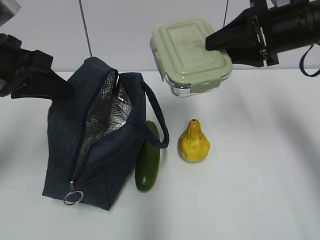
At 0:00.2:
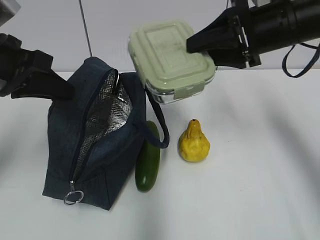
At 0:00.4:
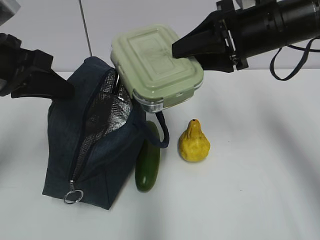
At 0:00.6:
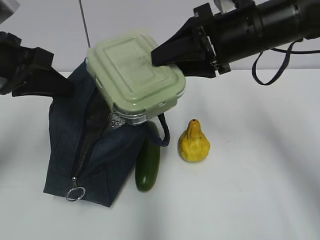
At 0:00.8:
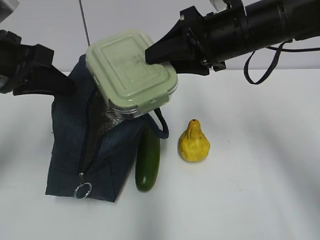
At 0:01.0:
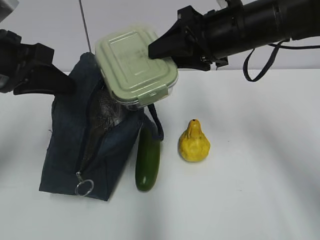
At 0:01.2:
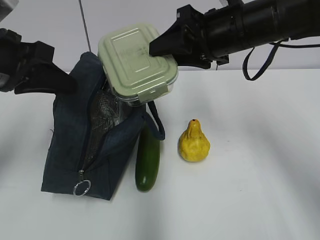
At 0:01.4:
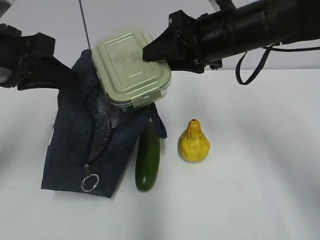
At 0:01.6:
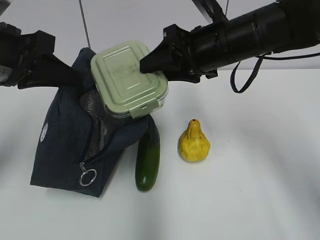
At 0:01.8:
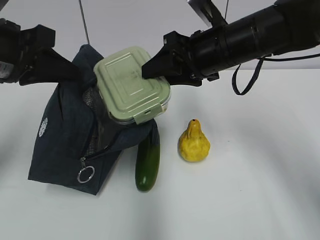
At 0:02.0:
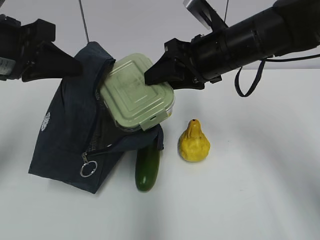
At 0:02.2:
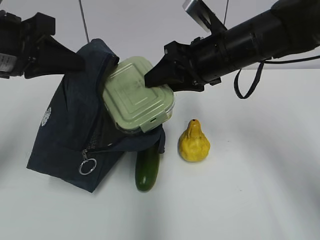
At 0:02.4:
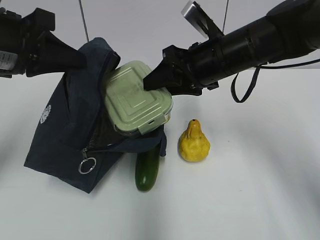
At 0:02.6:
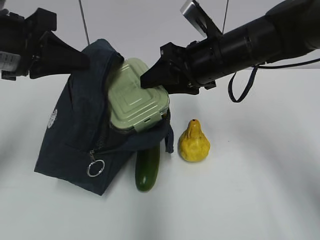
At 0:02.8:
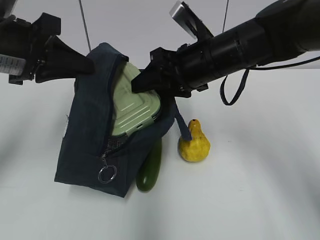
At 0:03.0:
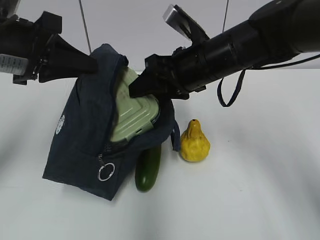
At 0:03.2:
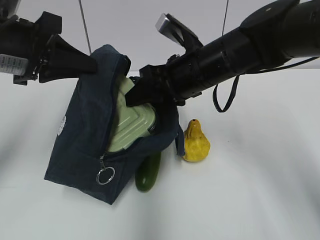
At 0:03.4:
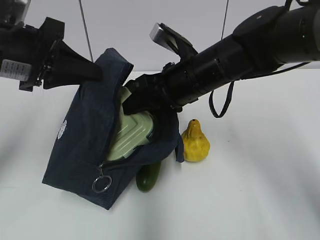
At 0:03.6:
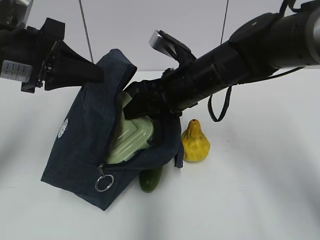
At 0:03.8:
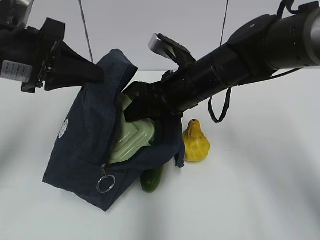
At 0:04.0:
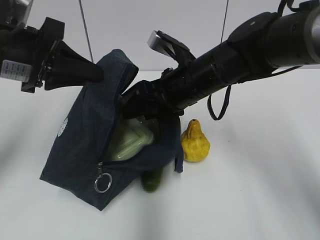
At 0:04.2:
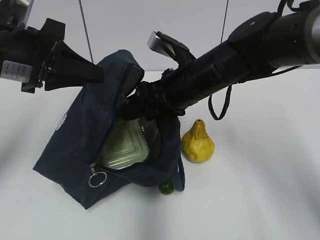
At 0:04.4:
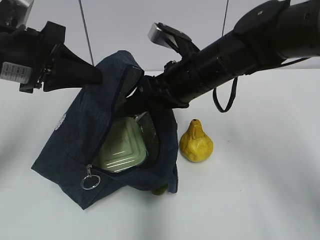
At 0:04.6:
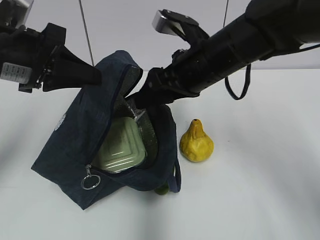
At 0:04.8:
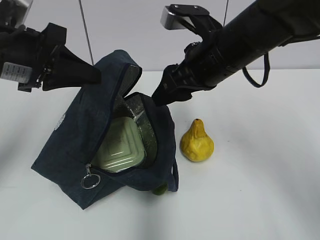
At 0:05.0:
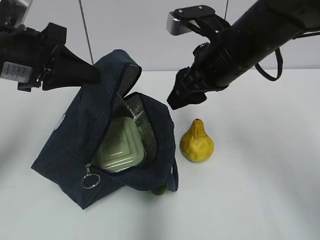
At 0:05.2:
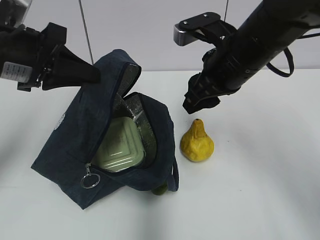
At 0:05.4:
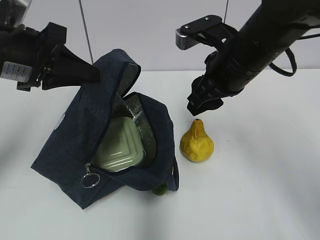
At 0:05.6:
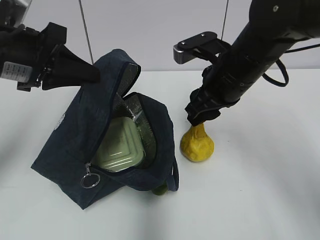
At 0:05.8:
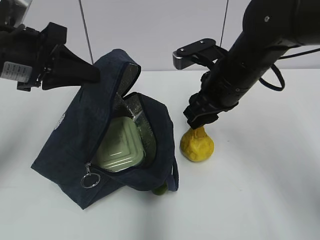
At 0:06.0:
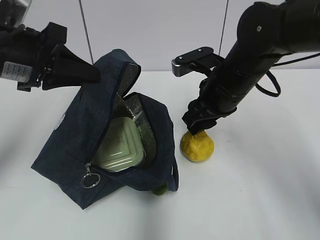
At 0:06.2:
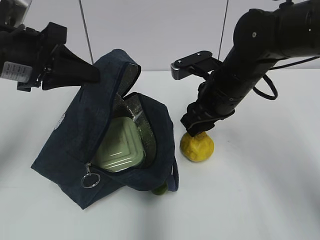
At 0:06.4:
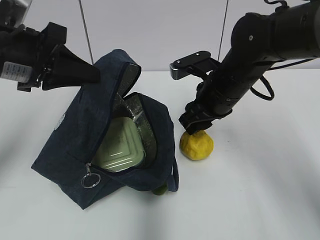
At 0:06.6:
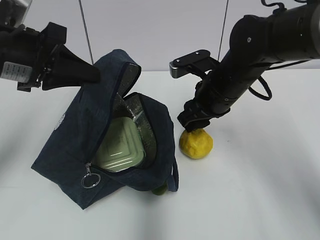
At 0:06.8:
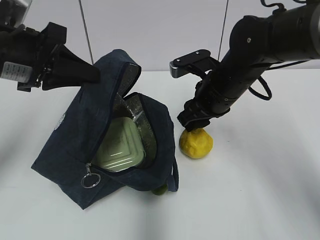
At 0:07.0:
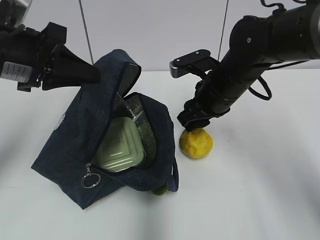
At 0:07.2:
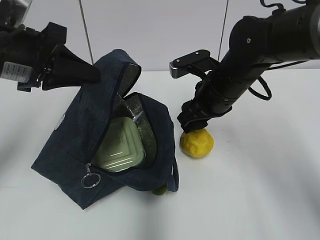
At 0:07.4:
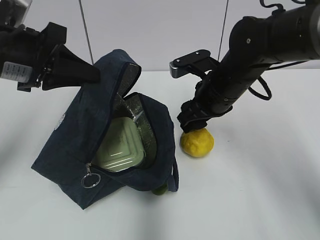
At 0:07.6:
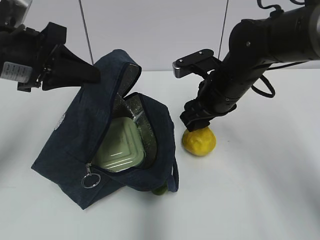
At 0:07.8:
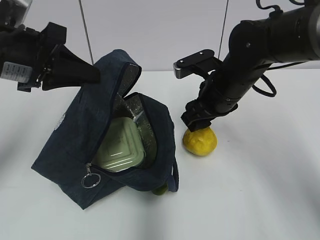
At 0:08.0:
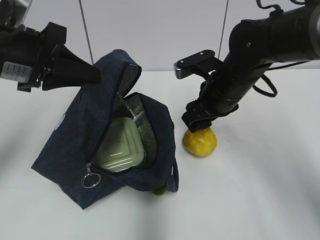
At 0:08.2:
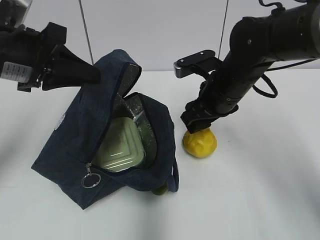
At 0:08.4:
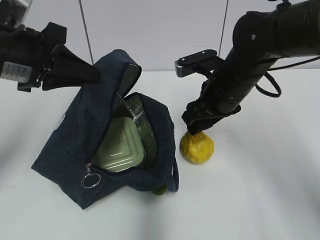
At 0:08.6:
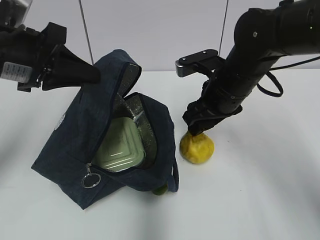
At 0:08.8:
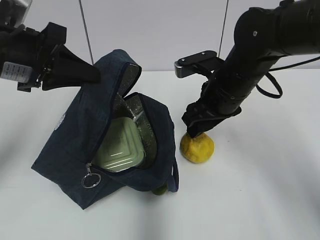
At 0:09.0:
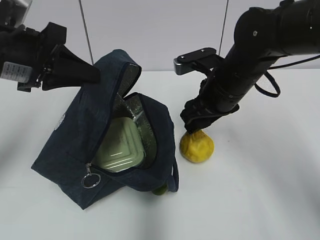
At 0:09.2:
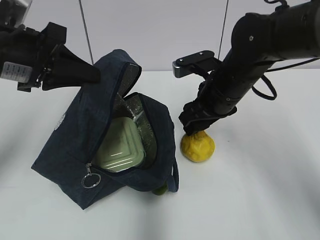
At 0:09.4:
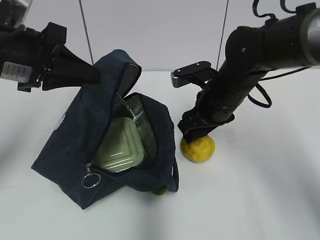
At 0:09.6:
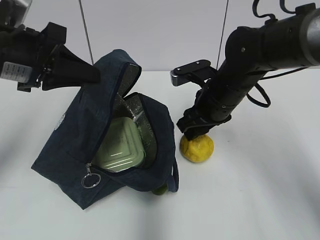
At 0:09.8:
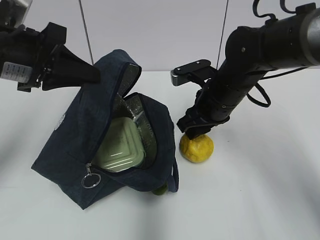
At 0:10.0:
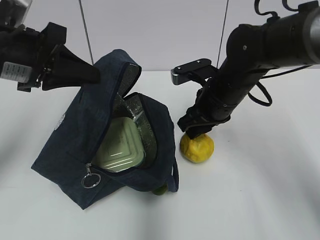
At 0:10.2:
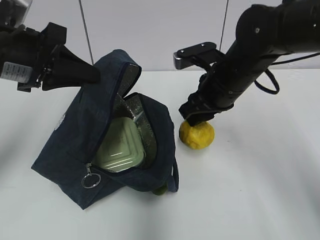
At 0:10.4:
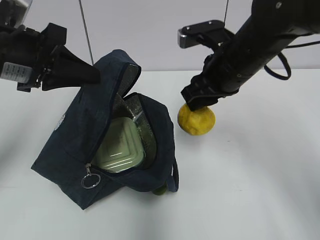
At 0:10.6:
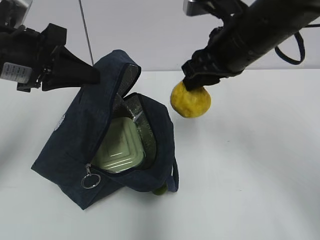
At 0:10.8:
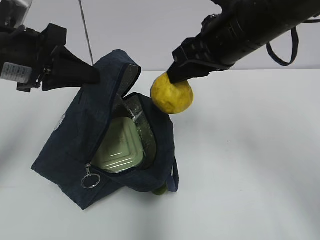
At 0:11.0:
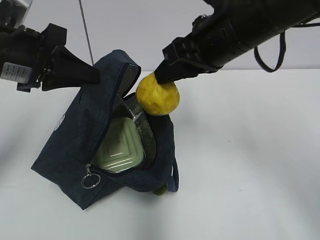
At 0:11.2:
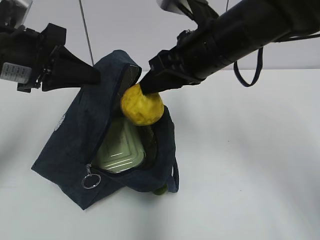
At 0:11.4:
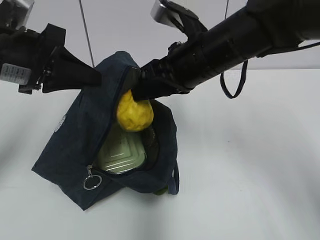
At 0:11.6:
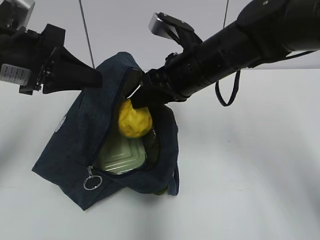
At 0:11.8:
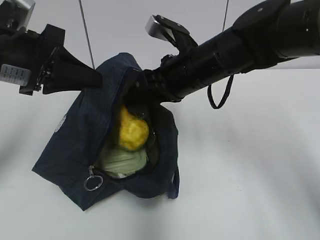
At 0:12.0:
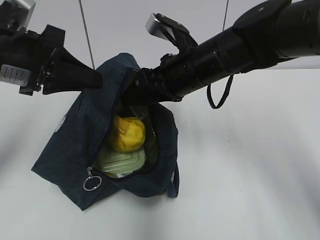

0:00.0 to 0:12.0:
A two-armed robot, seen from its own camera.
0:00.0 to 0:01.6: The right gripper heads to the left, covering some 10 cm.
0:03.0 to 0:04.4: The grippers stay close to where they were, moving slightly.
0:04.4 to 0:06.0: The right gripper shifts by roughly 5 cm.
0:06.0 to 0:10.4: The grippers make only small movements.
0:10.4 to 0:12.0: The right gripper is displaced to the left by approximately 5 cm.

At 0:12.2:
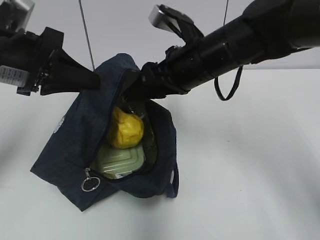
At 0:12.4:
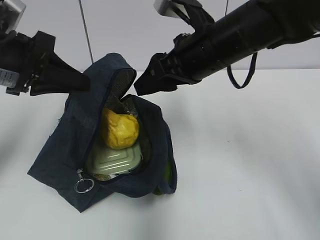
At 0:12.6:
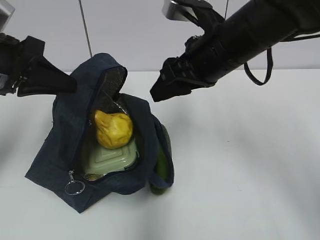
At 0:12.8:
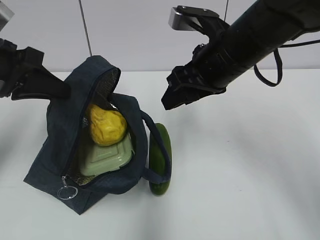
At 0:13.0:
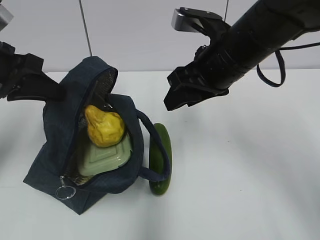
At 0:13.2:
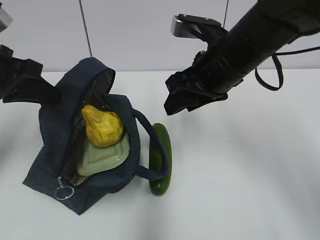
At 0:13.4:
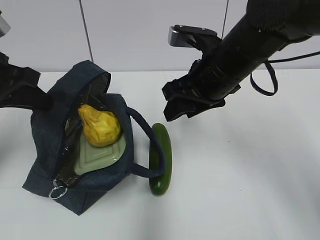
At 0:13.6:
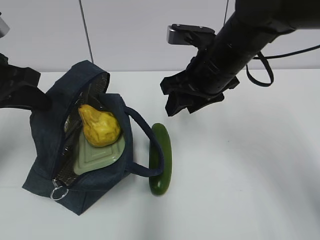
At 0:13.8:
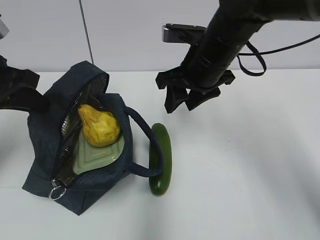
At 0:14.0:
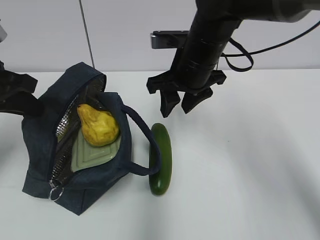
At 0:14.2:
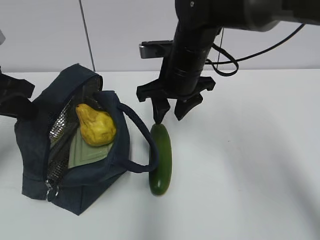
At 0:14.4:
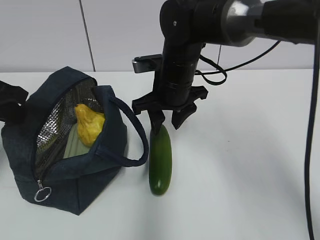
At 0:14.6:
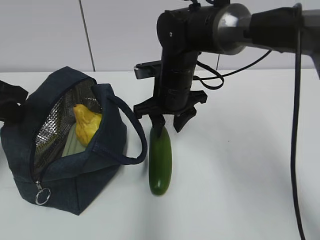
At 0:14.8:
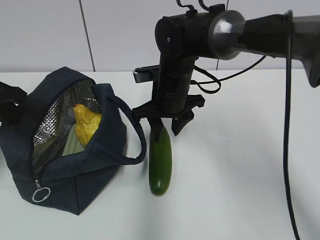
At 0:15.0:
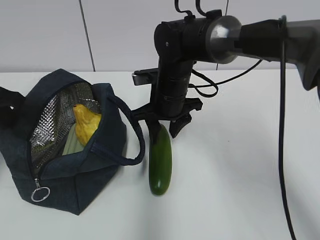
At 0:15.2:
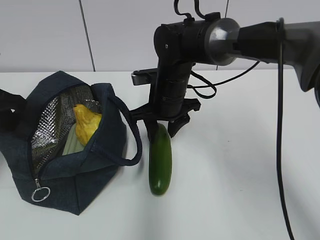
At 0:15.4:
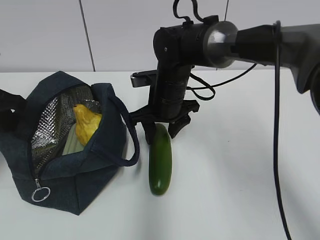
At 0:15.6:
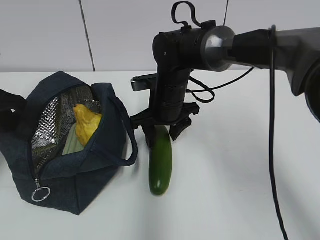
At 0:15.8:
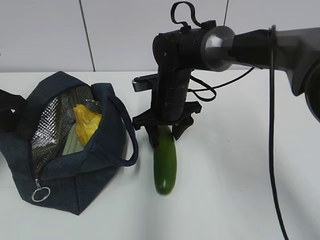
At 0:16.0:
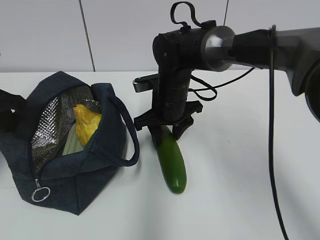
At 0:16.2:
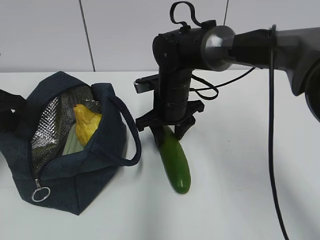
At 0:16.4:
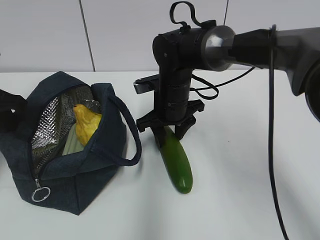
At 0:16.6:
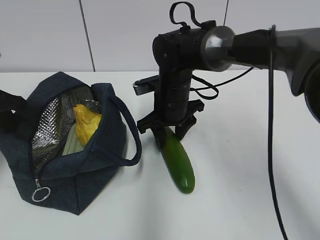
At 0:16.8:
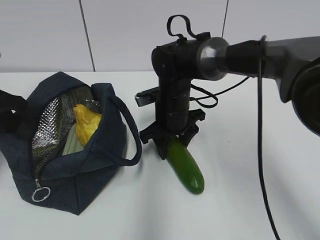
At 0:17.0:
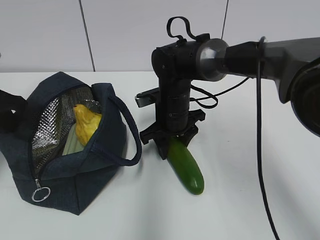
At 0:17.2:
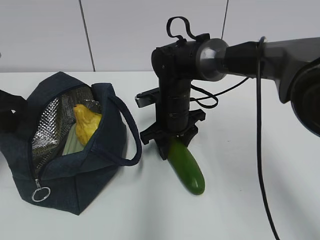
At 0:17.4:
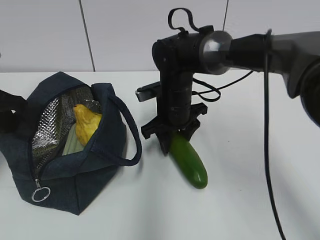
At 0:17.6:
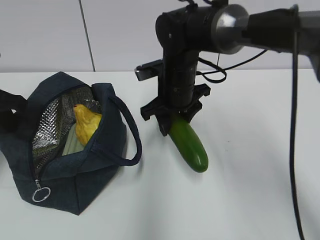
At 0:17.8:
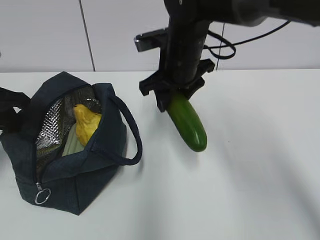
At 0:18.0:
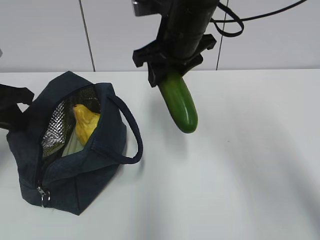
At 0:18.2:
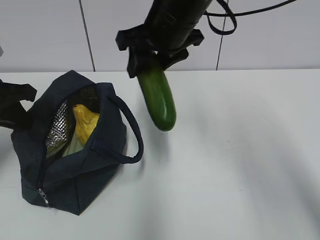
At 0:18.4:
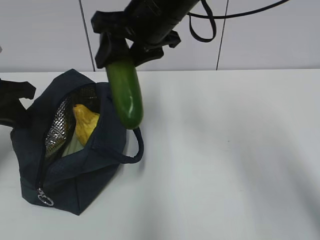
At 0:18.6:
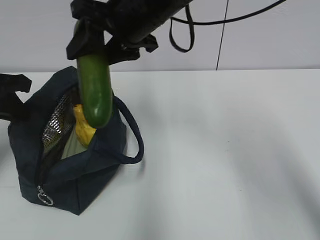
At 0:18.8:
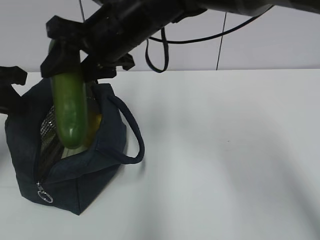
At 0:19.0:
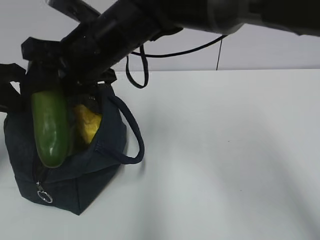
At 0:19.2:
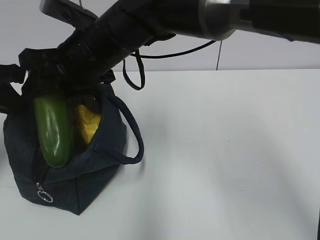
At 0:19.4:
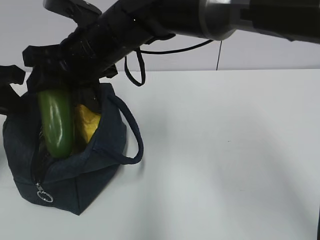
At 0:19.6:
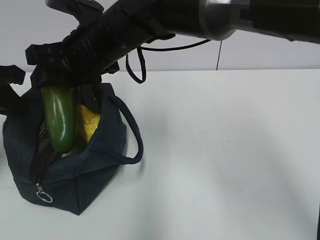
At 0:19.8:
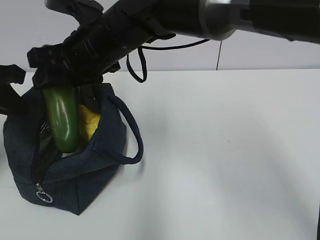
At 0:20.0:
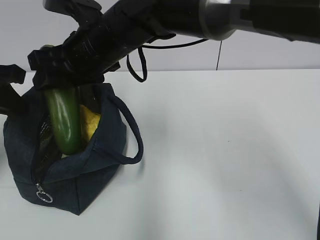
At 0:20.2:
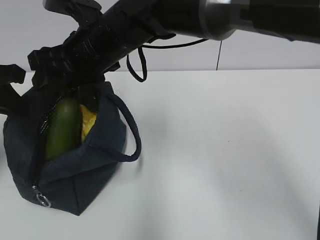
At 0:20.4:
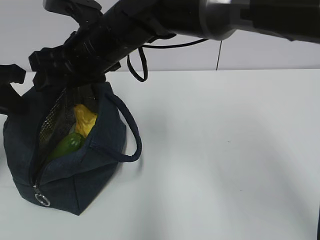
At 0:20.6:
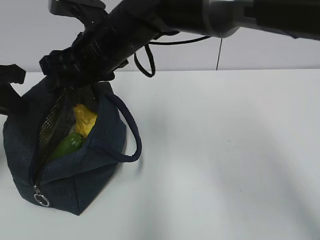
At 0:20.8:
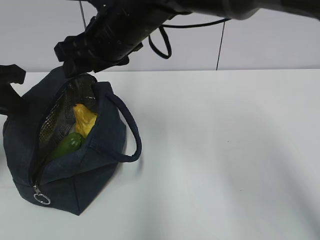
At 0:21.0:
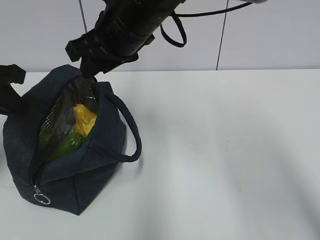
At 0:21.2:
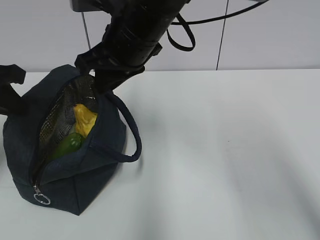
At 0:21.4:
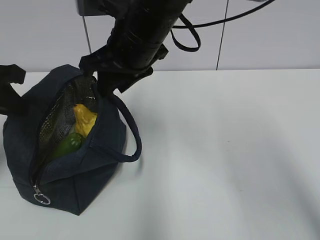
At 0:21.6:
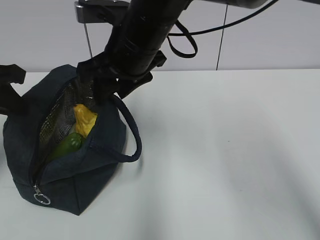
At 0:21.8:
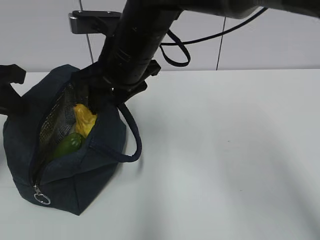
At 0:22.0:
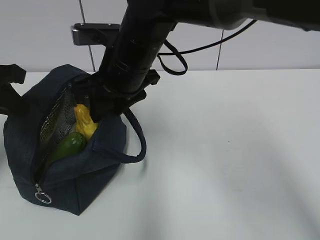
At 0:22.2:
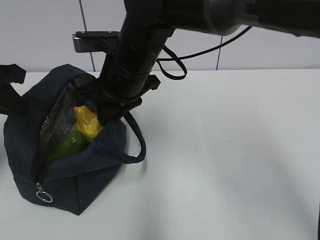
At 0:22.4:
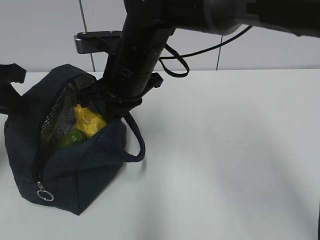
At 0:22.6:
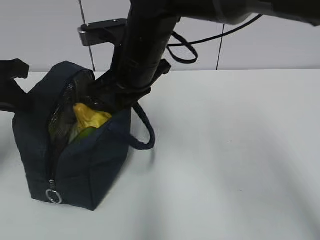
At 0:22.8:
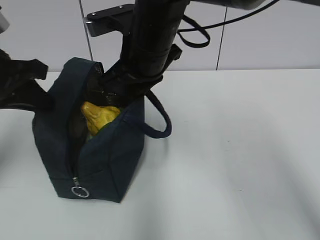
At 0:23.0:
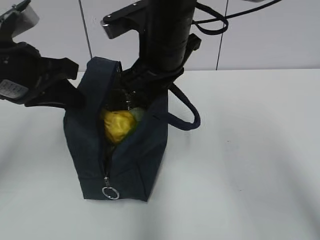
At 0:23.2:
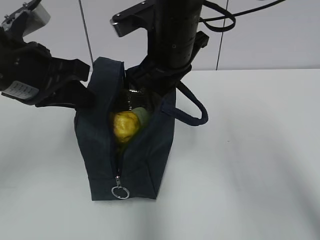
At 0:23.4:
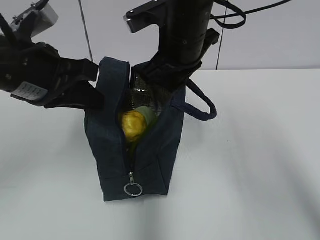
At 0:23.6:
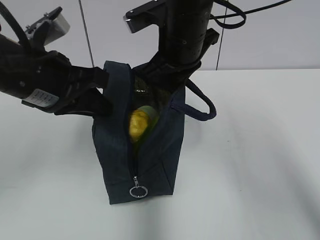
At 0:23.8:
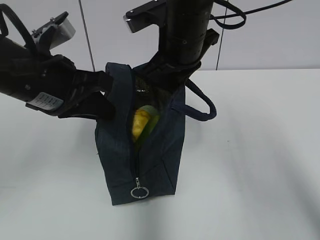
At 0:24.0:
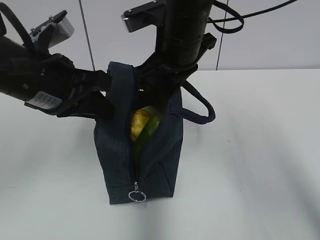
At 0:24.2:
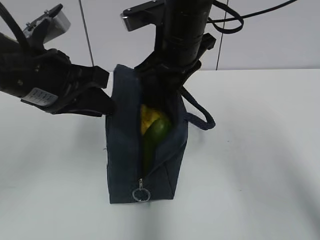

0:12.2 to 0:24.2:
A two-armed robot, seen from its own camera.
0:12.2 to 0:13.8: The left gripper is displaced to the left by about 5 cm.
0:13.8 to 0:15.2: The right gripper travels downward and to the left by approximately 10 cm.
0:15.2 to 0:16.6: The grippers make only small movements.
0:16.6 to 0:18.2: The right gripper shifts some 15 cm upward.
0:18.2 to 0:19.8: The right gripper travels to the left by about 10 cm.
0:19.8 to 0:21.2: The right gripper moves to the right, some 5 cm, and closes up.
0:21.2 to 0:22.6: The grippers stay close to where they were, moving slightly.
0:22.6 to 0:24.2: The left gripper shifts some 10 cm to the right, while the right gripper shifts roughly 5 cm to the right, and opens its fingers.
